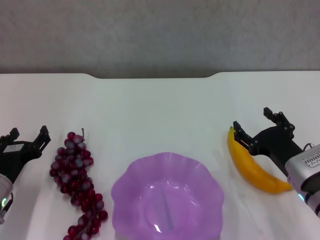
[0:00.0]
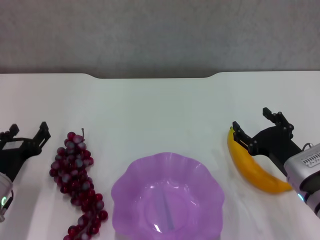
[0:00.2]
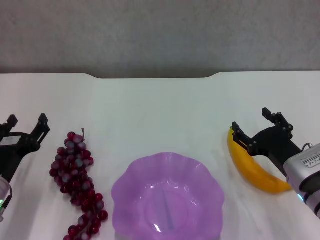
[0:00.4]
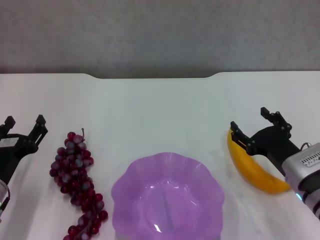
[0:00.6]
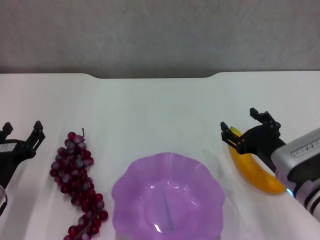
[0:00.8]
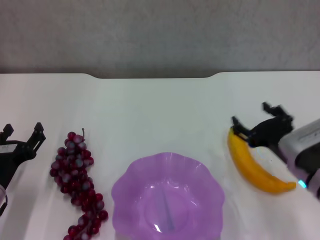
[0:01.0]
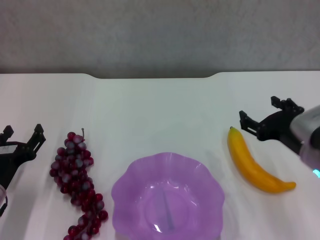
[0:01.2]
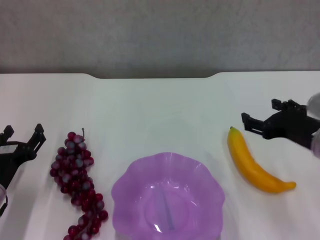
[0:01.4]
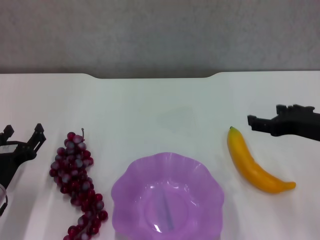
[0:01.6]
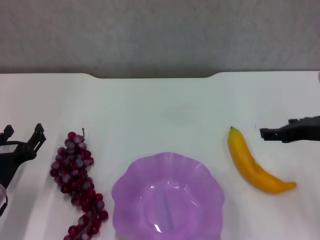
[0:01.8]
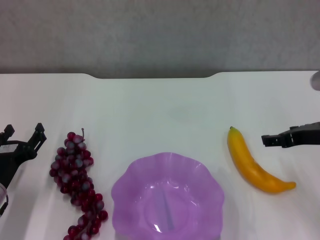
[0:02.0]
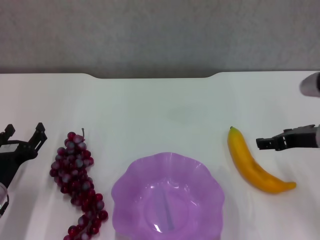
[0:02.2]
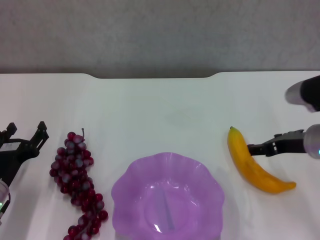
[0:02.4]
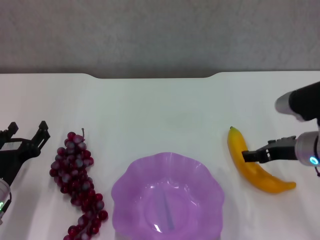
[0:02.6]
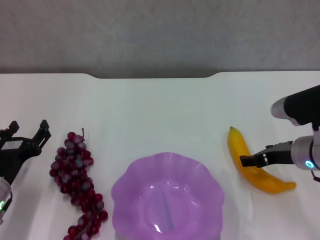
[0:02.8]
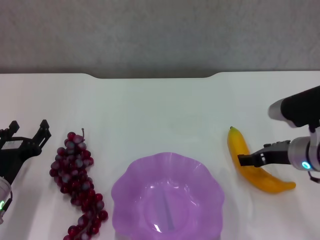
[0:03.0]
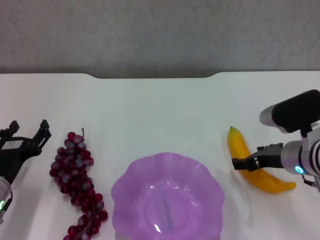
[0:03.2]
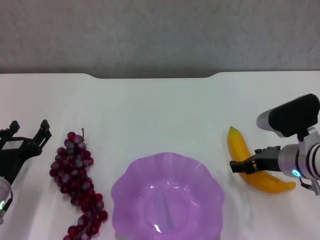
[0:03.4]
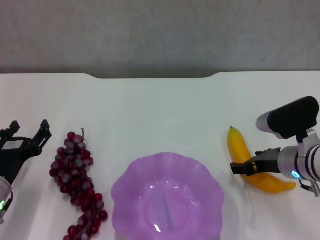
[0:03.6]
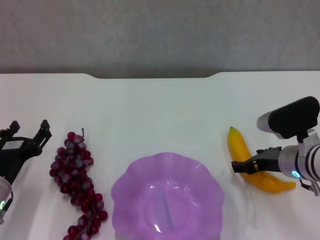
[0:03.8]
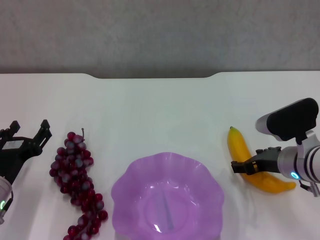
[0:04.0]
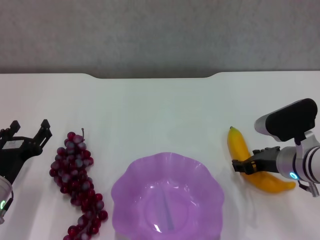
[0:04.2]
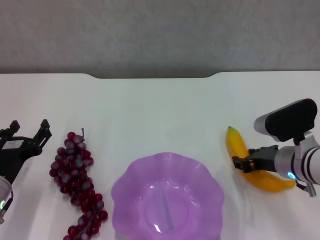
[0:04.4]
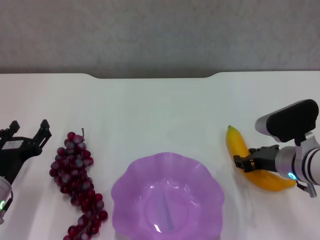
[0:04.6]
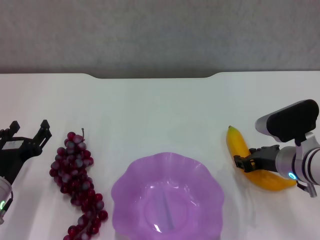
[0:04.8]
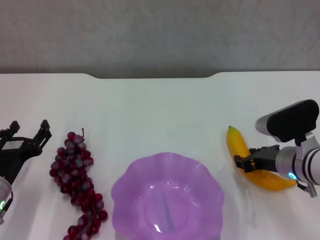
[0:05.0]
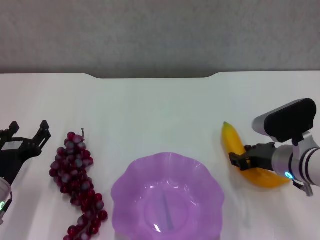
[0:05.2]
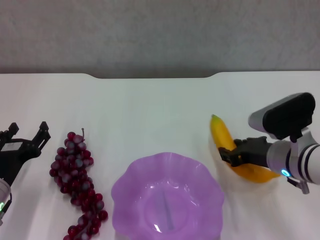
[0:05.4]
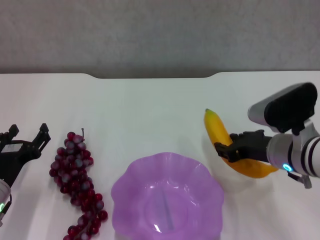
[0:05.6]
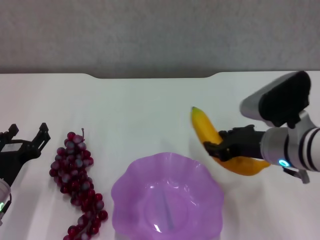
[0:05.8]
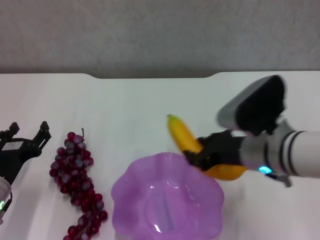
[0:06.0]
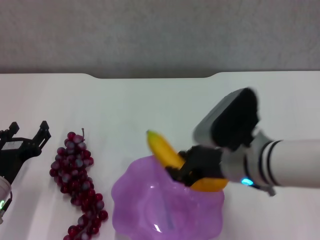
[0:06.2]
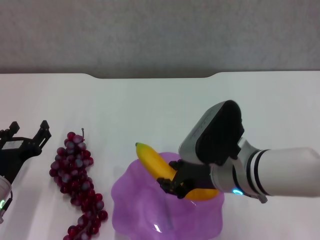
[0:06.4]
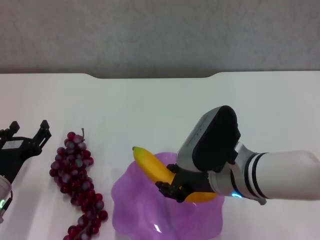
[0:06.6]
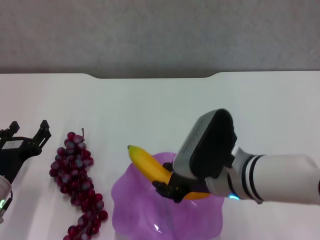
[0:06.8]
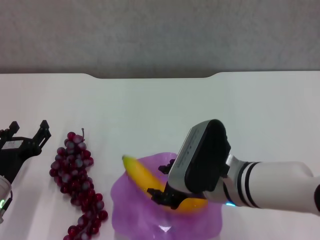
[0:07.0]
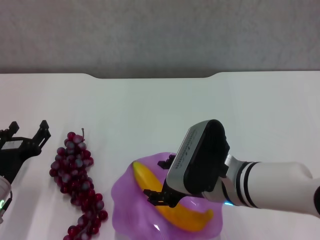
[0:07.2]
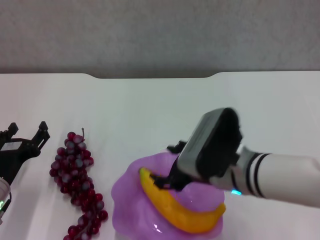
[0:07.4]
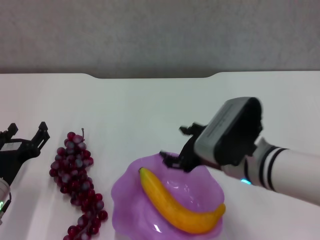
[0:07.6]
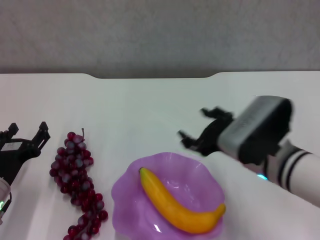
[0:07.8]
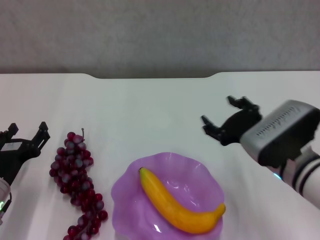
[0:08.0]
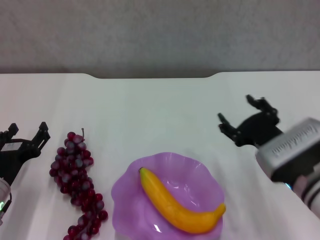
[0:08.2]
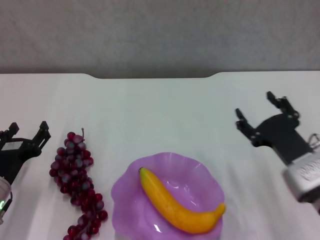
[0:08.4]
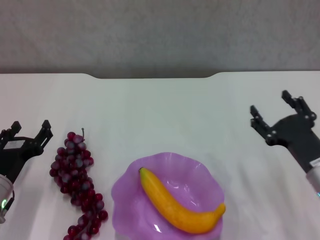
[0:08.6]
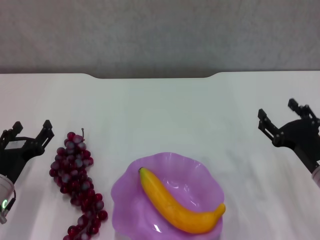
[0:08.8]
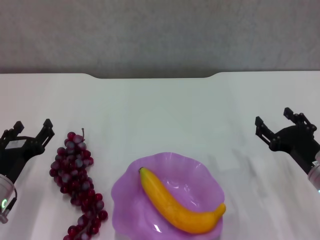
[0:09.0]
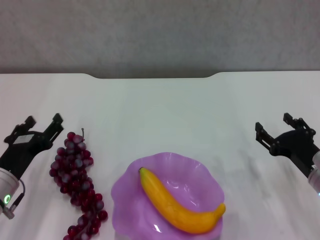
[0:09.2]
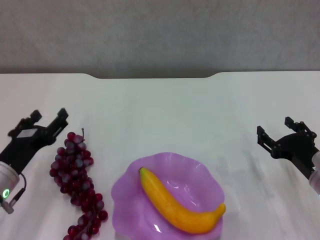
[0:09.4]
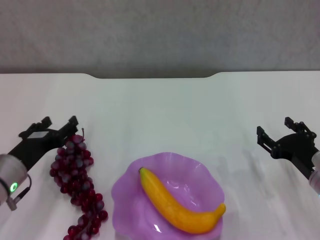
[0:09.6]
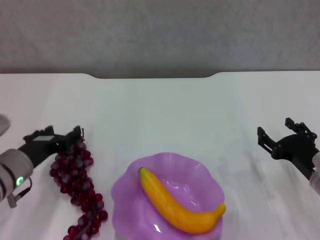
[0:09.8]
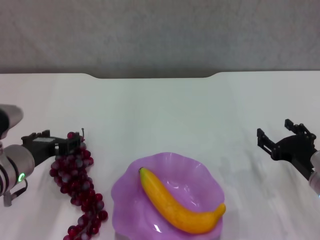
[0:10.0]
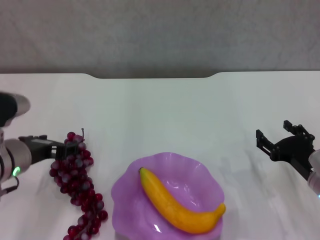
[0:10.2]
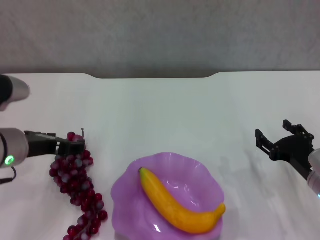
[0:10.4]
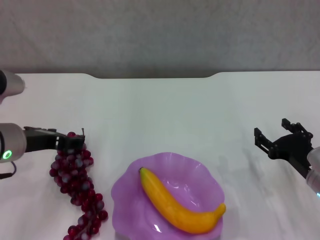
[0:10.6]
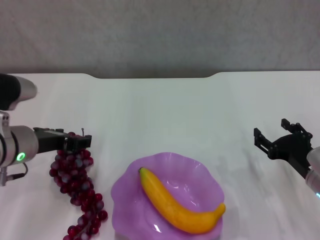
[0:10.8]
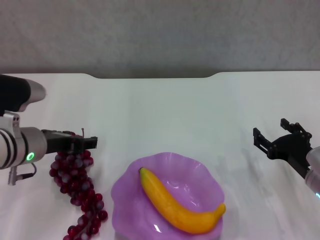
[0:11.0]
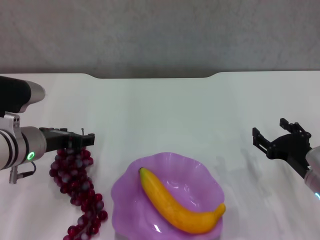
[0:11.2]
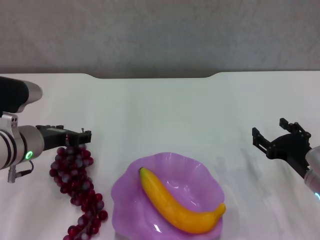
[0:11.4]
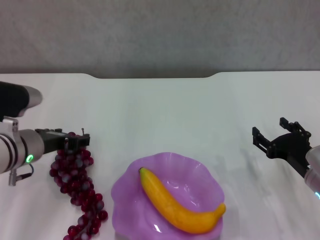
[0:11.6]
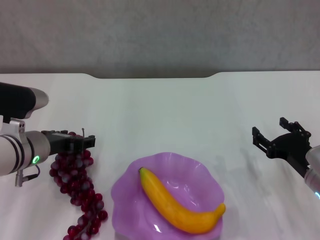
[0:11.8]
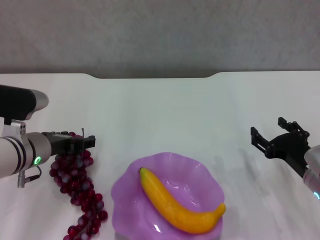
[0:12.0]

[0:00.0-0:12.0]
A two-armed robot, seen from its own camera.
Step, 0.0 to 4.4 s: Grasp the banana with right gripper.
Step, 4.8 to 7.4 s: Place the banana in the purple plate with right gripper.
0.0 to 1.6 s: The right gripper shifts approximately 10 cm upward.
1.6 to 3.0 s: The right gripper is displaced downward by about 5 cm.
3.0 to 4.4 s: The grippers make only small movements.
4.4 to 6.0 s: The right gripper goes about 10 cm upward and to the left, and closes up.
6.0 to 7.6 s: The right gripper opens.
7.6 to 9.0 s: The right gripper moves to the right and downward, roughly 15 cm.
9.0 to 10.4 s: The left gripper moves upward, roughly 10 cm.
10.4 to 12.0 s: The left gripper moves downward, about 5 cm.

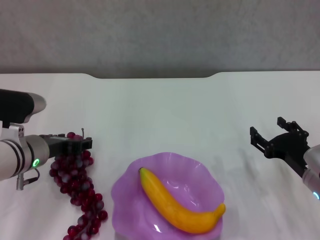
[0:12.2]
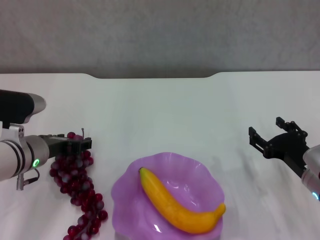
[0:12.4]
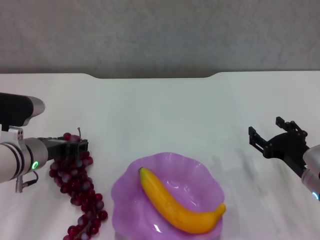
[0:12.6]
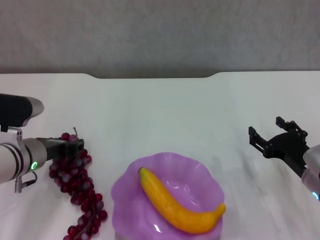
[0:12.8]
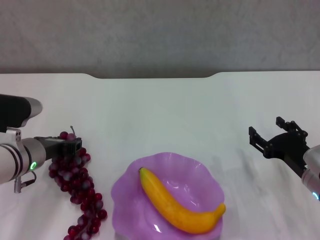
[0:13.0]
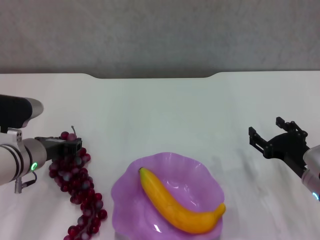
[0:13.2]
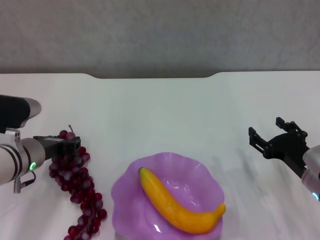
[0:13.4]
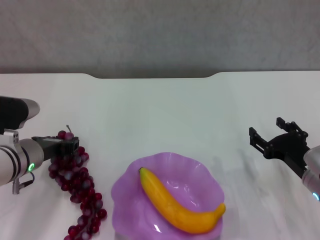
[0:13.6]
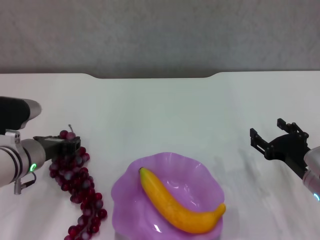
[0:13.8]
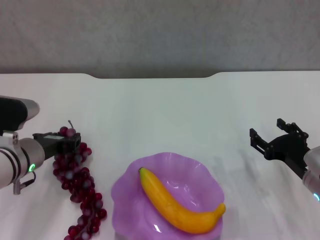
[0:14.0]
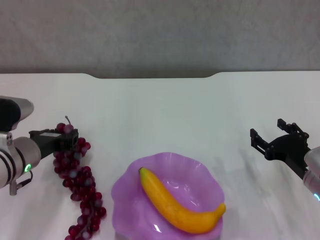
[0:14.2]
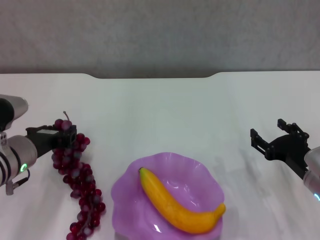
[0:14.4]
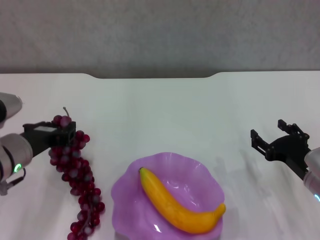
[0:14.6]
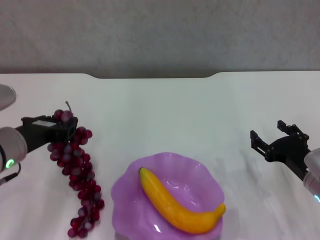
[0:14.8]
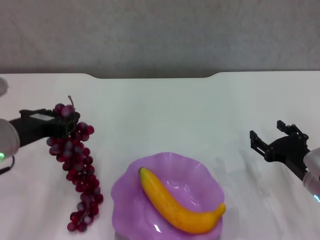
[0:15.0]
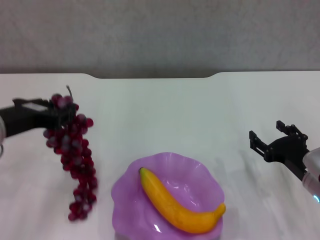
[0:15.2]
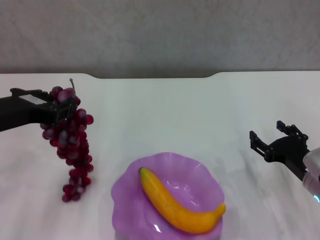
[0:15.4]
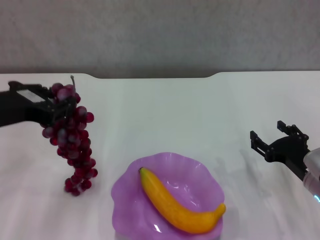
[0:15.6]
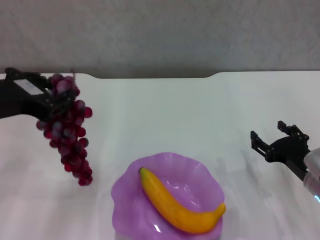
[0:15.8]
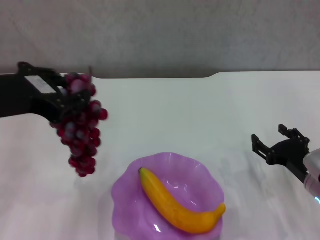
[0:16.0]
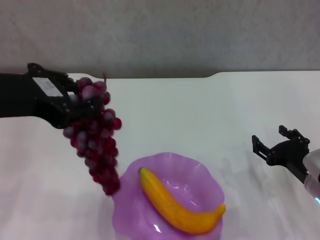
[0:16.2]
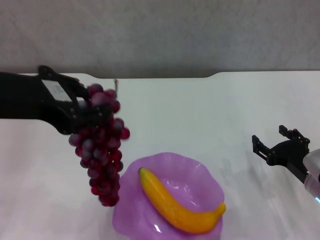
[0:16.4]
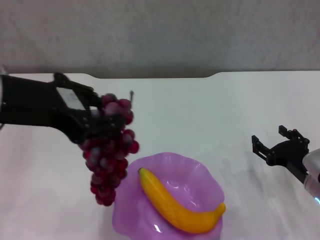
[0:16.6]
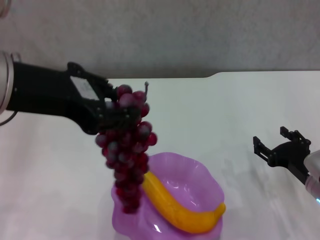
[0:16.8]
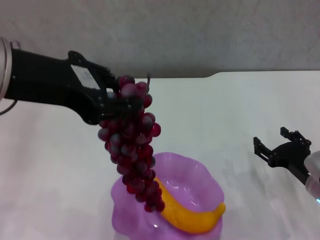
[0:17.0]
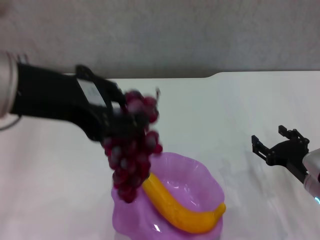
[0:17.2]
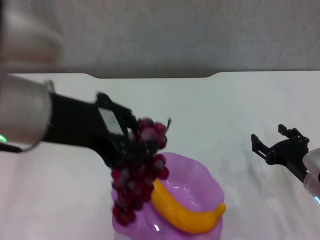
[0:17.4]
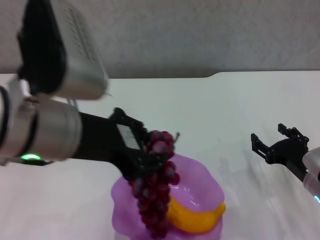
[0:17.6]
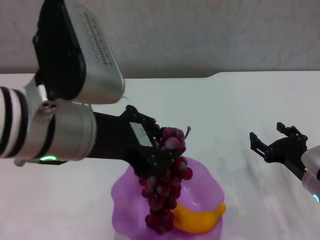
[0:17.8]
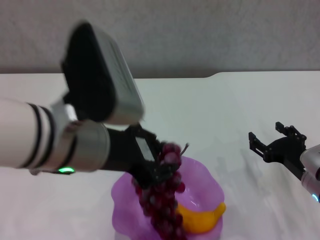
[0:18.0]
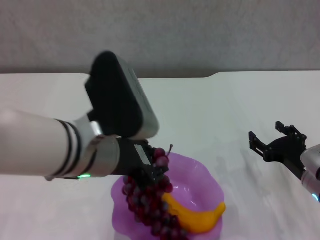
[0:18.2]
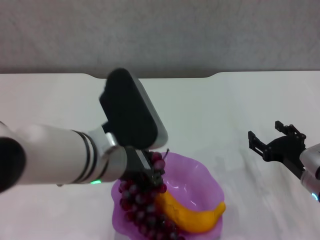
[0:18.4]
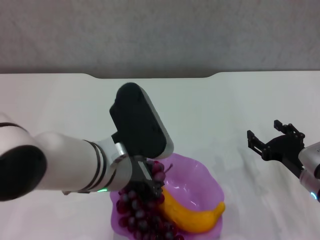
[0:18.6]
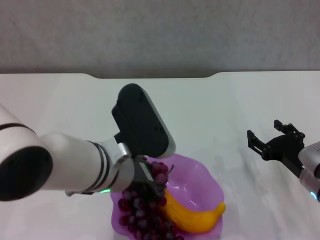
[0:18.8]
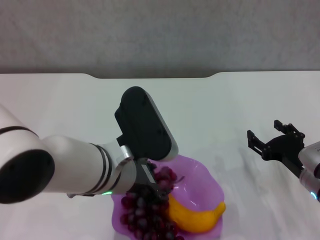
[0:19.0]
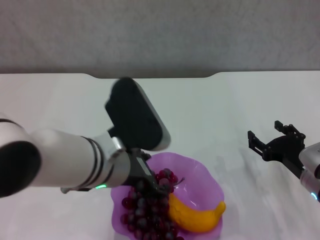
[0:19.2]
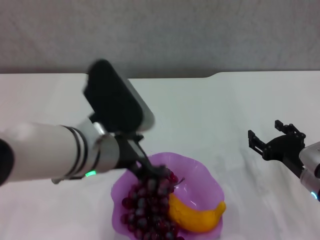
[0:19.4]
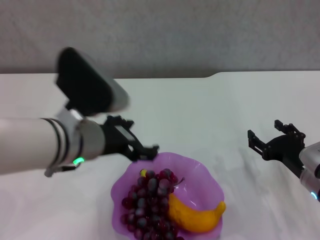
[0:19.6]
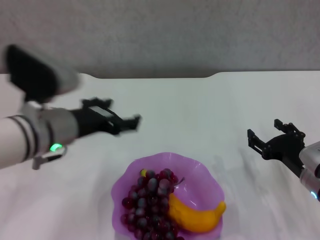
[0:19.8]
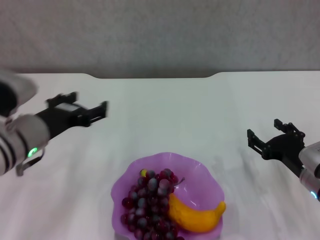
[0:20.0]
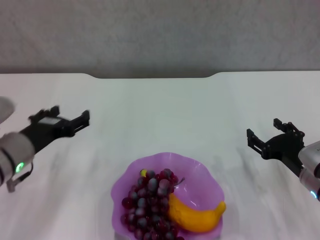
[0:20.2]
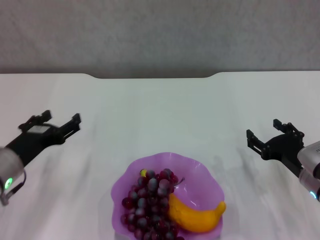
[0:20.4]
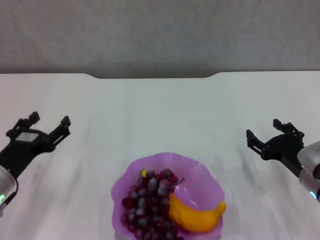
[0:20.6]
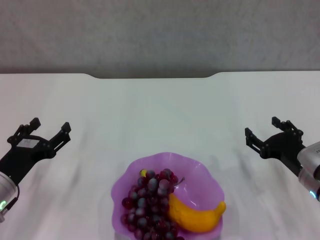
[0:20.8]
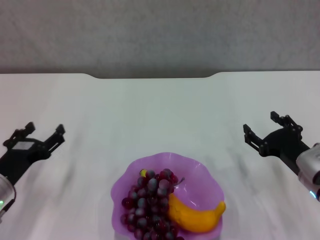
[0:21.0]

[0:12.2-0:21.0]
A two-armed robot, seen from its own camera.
Step, 13.2 to 19.4 s: Place the grape in the purple plate with left gripper.
12.2 to 13.6 s: The left gripper closes up.
13.6 to 15.2 s: The left gripper moves upward and backward, roughly 15 cm.
15.2 to 16.6 s: The left gripper moves upward and to the right, about 15 cm.
16.6 to 18.0 s: The left gripper goes some 10 cm to the right and downward.
18.0 to 19.6 s: The left gripper moves downward, roughly 5 cm, and opens up.
19.6 to 21.0 s: The left gripper goes some 20 cm to the left and downward.

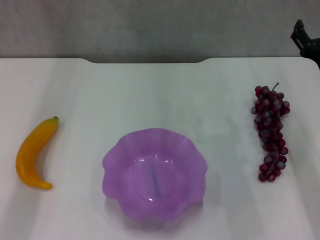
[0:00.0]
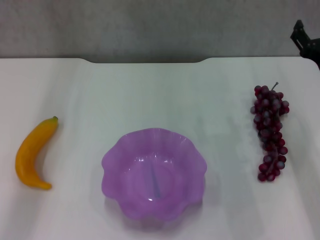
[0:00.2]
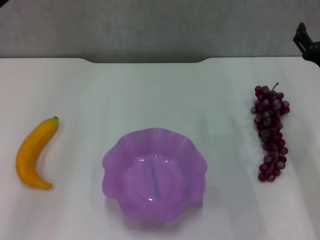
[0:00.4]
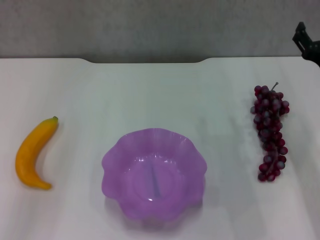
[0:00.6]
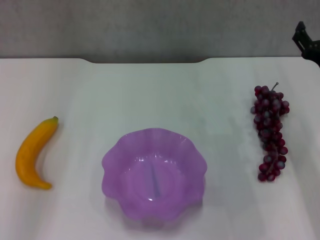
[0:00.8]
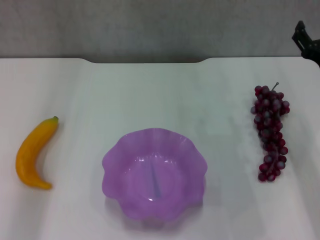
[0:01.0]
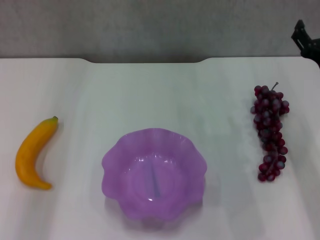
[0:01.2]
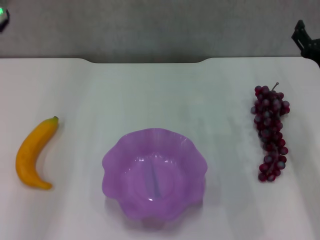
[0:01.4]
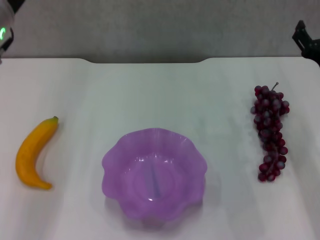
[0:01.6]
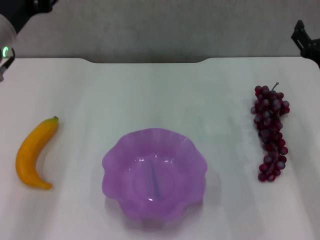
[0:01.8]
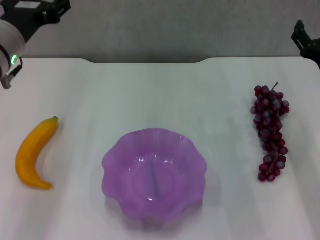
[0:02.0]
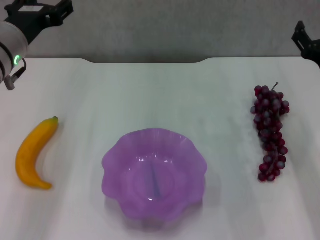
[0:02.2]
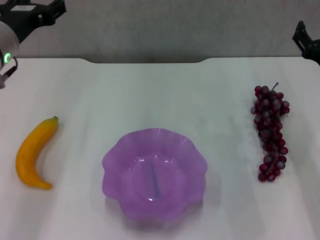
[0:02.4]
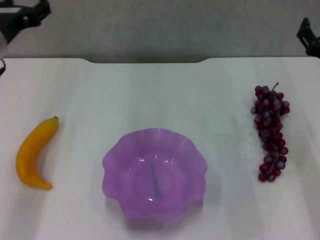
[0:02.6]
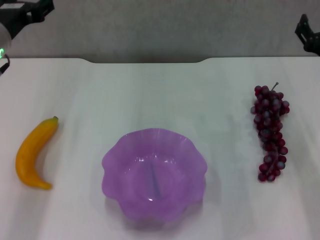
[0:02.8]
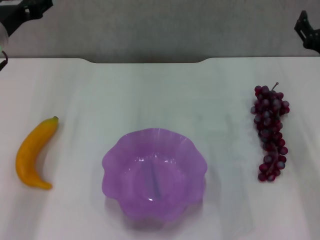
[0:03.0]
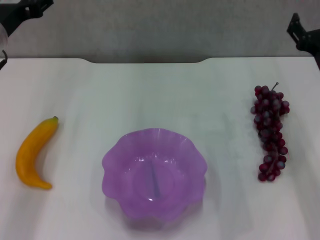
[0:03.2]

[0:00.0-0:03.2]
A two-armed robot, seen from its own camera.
0.0 to 1.6 s: The left gripper travels backward by some 5 cm.
1.6 to 3.2 s: There are only small adjustments of the grippers.
